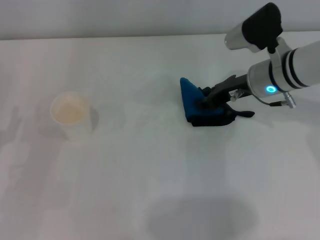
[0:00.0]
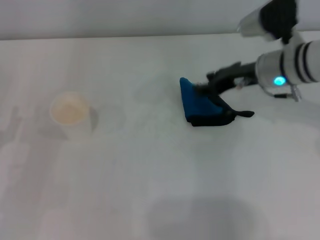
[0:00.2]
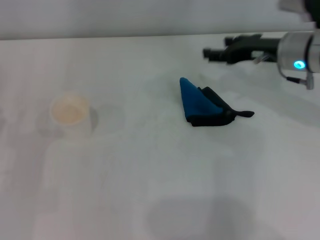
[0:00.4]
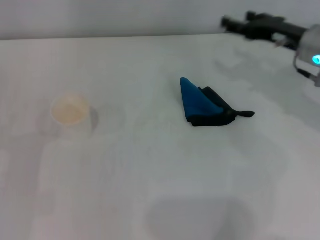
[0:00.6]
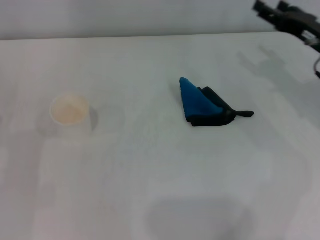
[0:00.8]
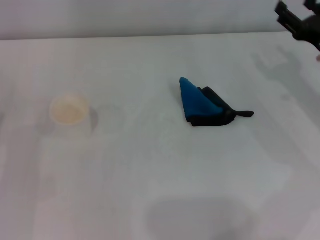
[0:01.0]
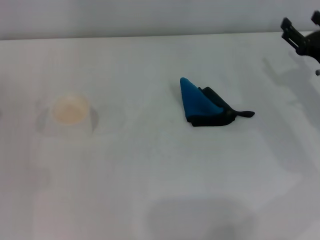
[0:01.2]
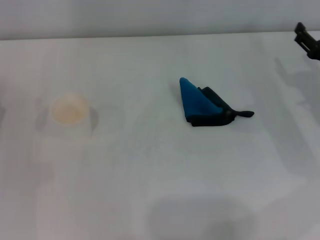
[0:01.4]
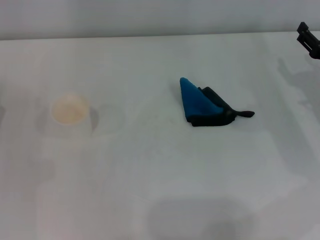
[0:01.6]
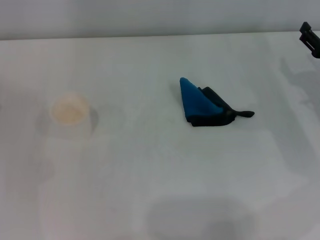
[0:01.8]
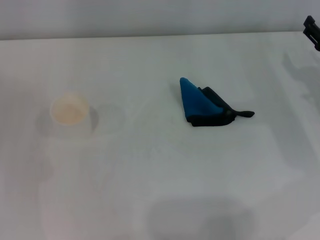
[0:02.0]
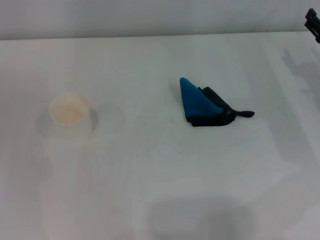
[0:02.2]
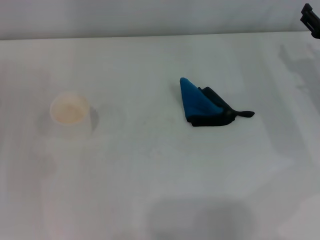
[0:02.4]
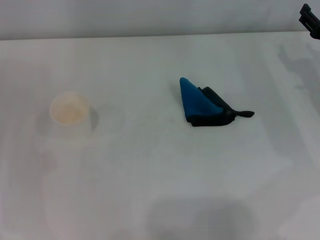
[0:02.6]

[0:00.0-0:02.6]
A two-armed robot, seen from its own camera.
0:00.0 to 0:01.2: The right gripper heads to the right and backward, covering some 15 cm, and opens up.
0:01.2 to 0:02.6: The grippers move only a little.

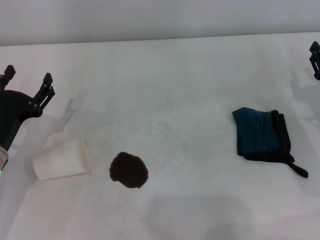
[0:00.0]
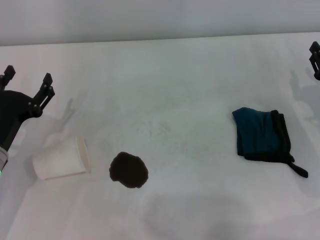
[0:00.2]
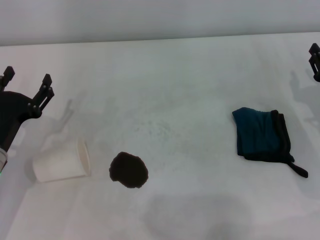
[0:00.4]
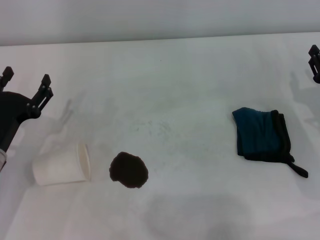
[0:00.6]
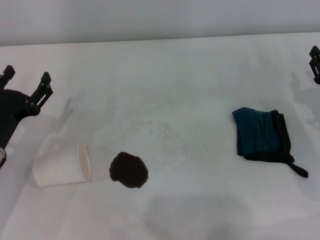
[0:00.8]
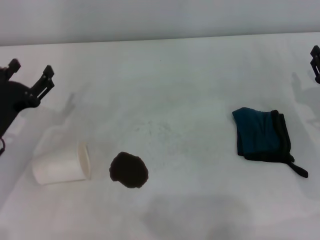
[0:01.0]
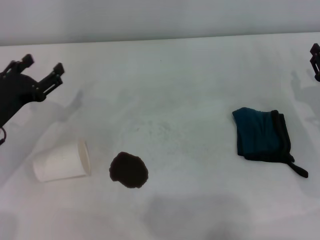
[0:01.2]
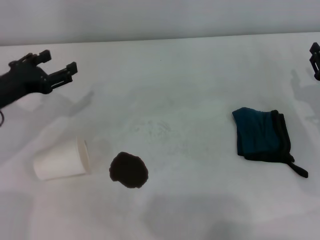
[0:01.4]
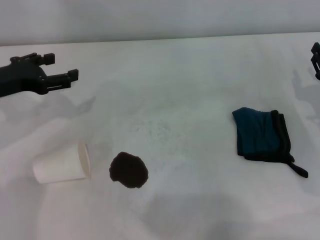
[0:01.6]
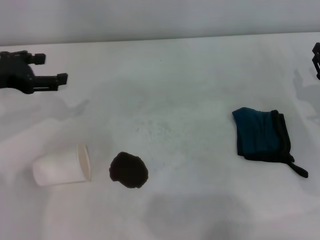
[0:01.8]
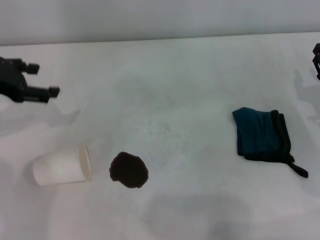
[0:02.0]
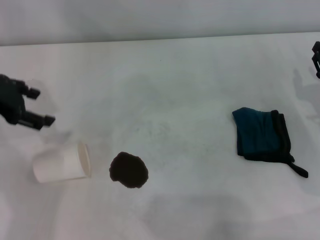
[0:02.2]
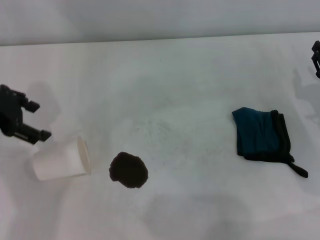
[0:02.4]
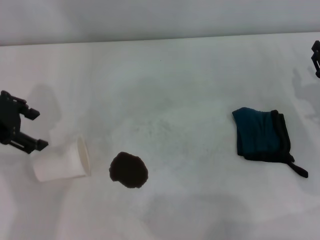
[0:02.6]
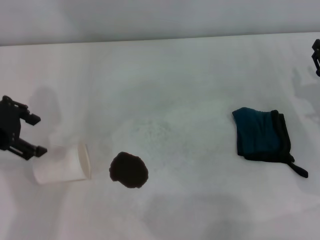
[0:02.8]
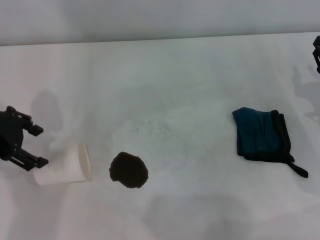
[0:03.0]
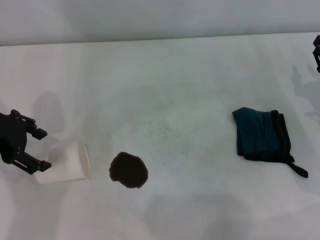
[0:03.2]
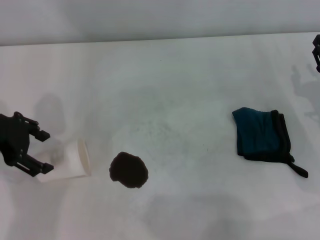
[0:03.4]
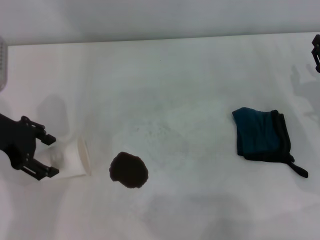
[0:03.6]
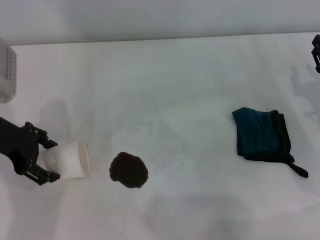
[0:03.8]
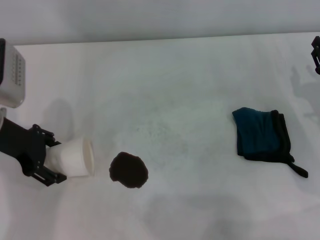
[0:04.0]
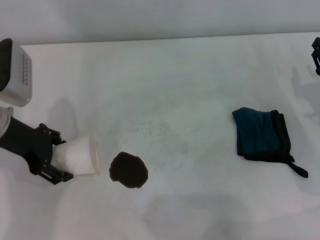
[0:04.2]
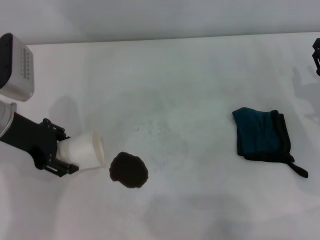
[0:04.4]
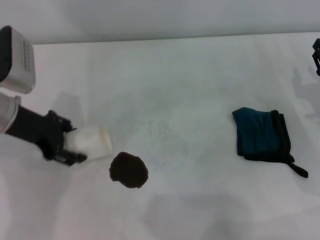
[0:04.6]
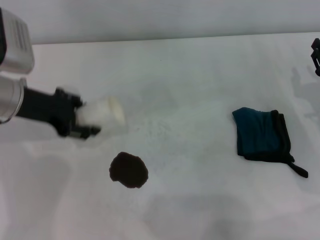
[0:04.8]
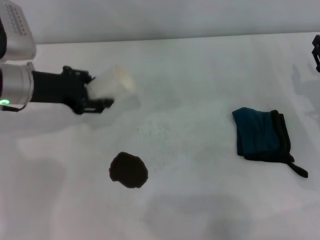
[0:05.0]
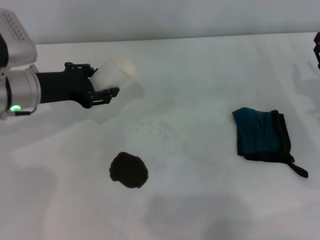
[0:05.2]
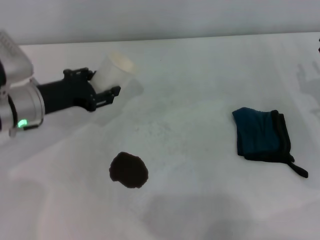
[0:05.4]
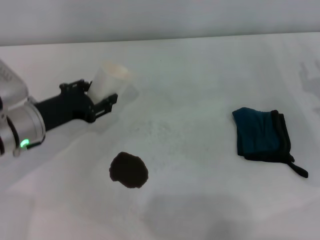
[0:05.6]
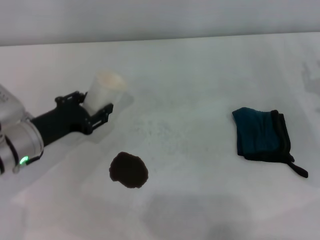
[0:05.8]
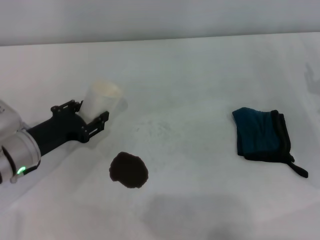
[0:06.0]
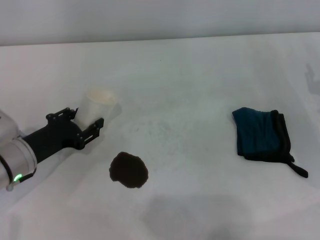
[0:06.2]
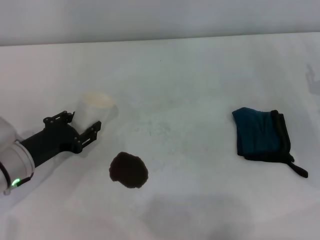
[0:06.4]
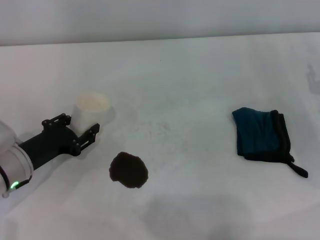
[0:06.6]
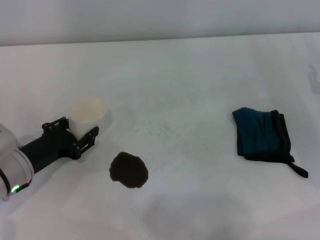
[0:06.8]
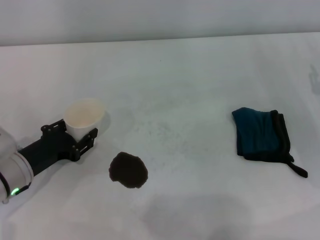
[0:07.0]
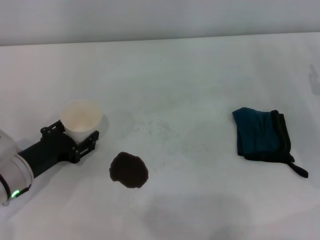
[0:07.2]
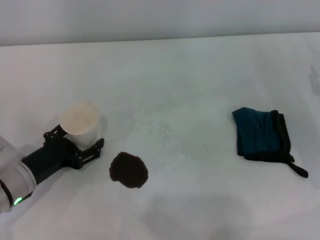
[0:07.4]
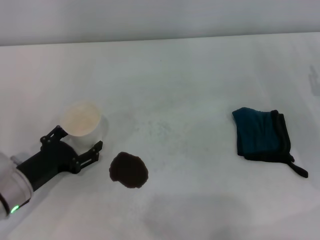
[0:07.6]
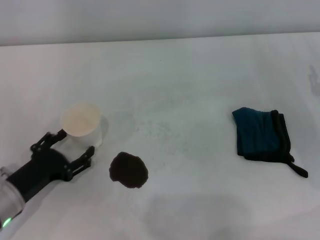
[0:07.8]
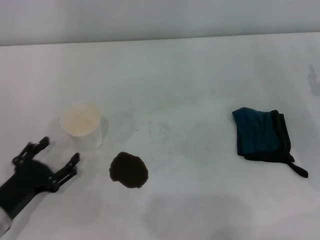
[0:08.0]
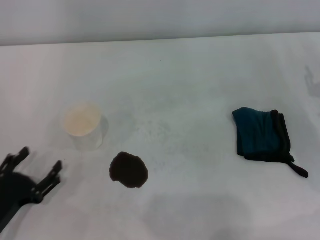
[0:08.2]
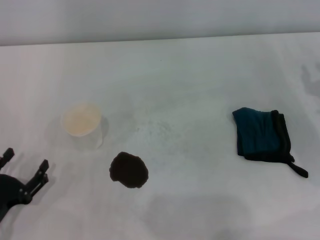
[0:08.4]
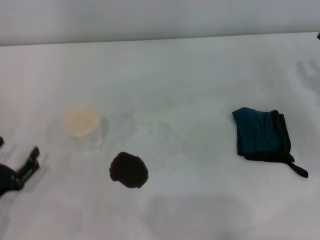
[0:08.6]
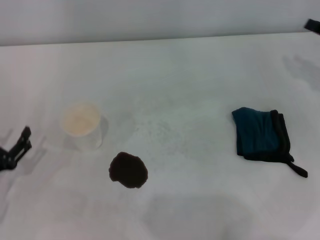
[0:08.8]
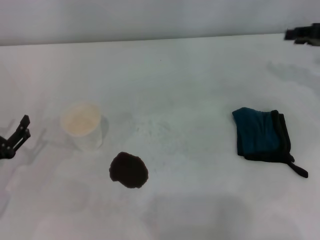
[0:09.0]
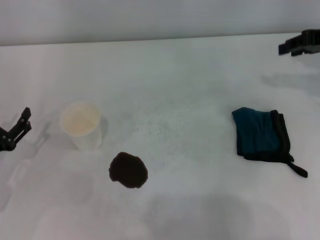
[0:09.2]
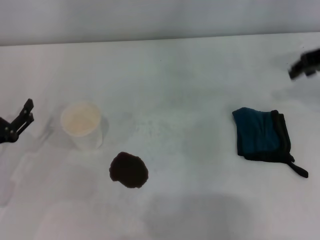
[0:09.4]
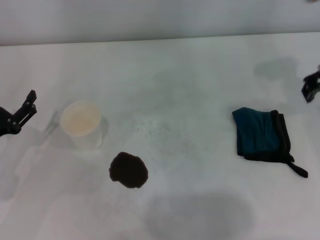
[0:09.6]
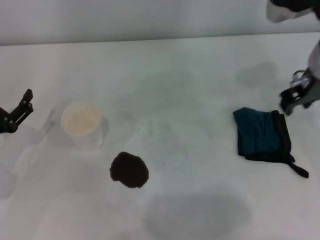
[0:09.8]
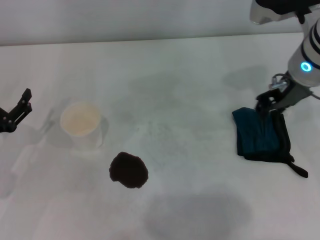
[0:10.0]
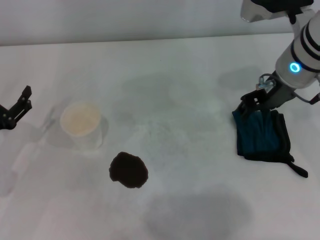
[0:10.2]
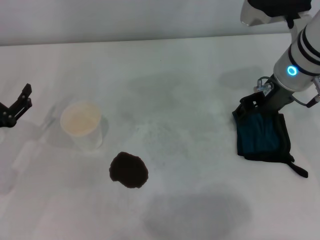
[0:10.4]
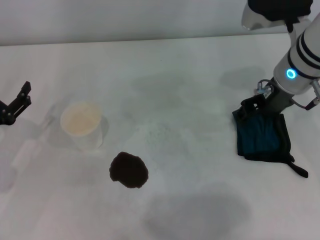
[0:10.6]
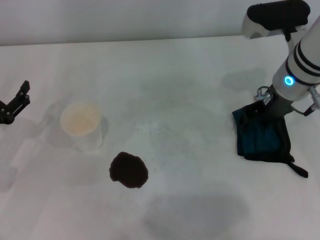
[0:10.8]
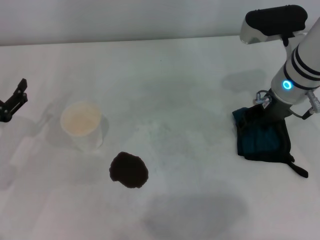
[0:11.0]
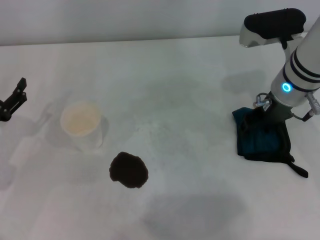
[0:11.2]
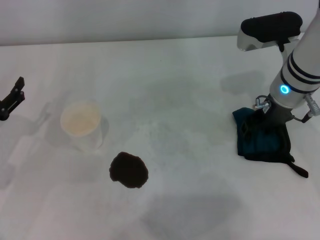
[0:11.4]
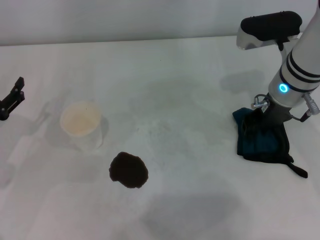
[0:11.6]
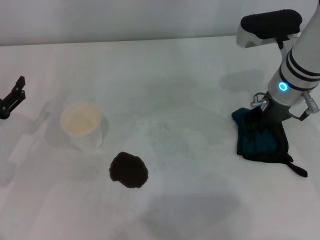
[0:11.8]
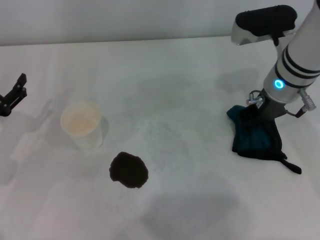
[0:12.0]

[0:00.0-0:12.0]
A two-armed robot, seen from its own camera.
Step, 0:00.0 to 0:04.2: Grasp the paper cup with the left gripper.
Step, 0:04.6 to 0:07.6: Stand the paper cup upright with the left gripper.
Step, 0:07.8 to 0:11.8: Grasp the rag with the right gripper.
0:00.0 to 0:01.6: The left gripper travels forward and upward by approximately 15 cm.
0:01.6 to 0:03.0: The left gripper goes about 5 cm upward.
0:03.0 to 0:04.4: The left gripper changes place by approximately 5 cm.
0:04.4 to 0:06.0: The left gripper is displaced downward and backward by some 10 cm, and closes.
0:06.0 to 0:07.6: The left gripper travels backward by approximately 5 cm, and opens its fingers.
0:07.6 to 0:09.0: The left gripper travels to the left by some 5 cm, and reaches roughly 10 cm backward, then returns. The right gripper goes roughly 15 cm upward and forward.
0:09.0 to 0:10.4: The right gripper shifts some 15 cm to the left.
0:10.4 to 0:12.0: The right gripper closes up.

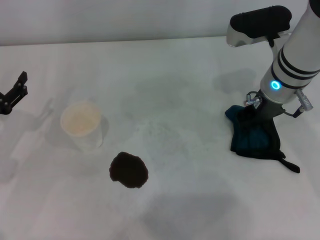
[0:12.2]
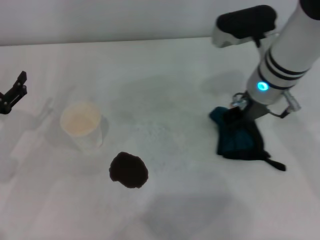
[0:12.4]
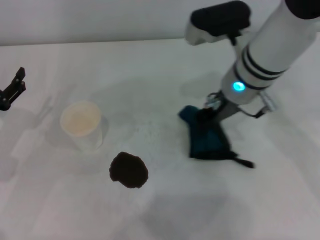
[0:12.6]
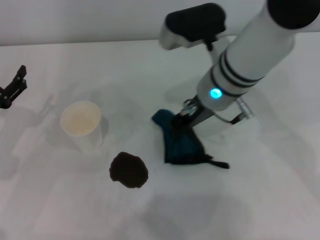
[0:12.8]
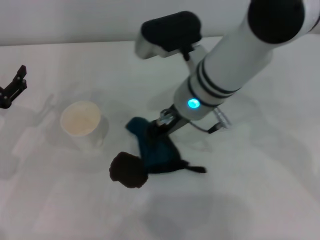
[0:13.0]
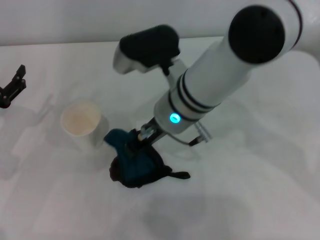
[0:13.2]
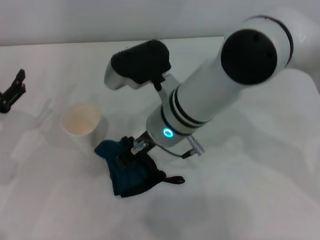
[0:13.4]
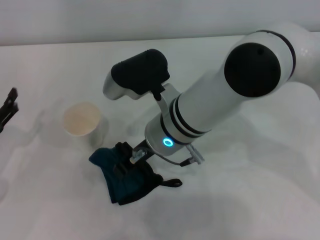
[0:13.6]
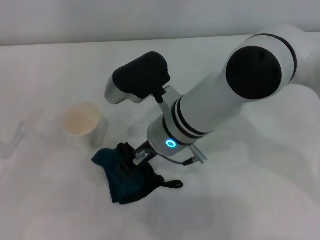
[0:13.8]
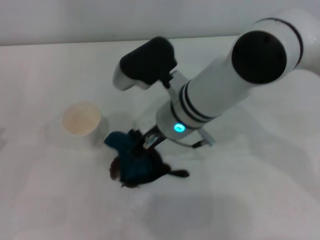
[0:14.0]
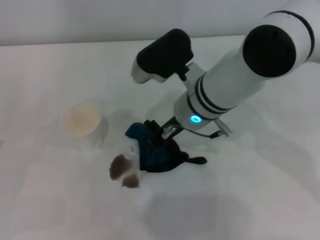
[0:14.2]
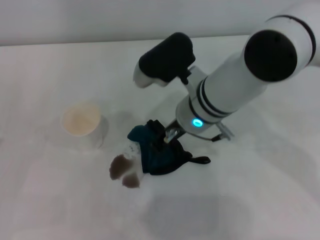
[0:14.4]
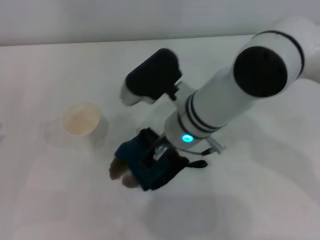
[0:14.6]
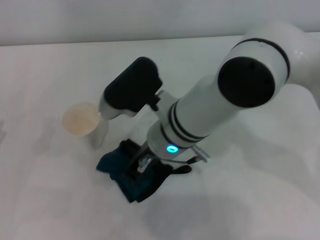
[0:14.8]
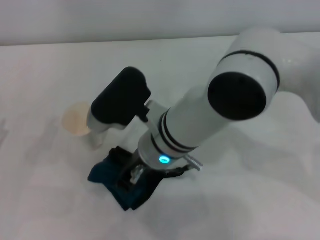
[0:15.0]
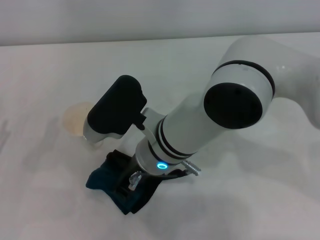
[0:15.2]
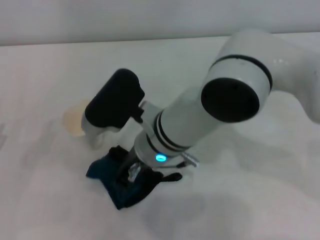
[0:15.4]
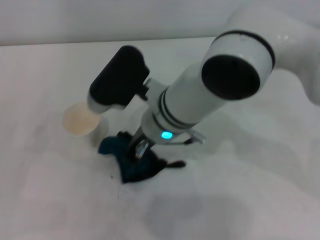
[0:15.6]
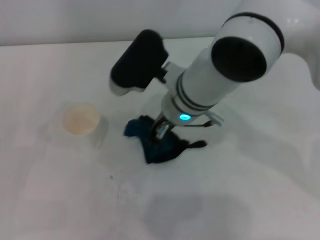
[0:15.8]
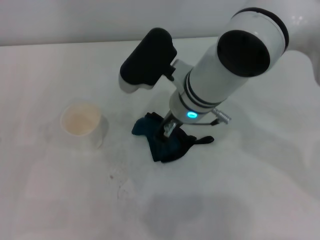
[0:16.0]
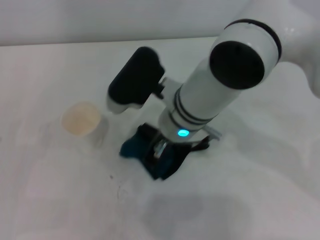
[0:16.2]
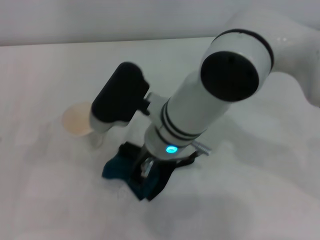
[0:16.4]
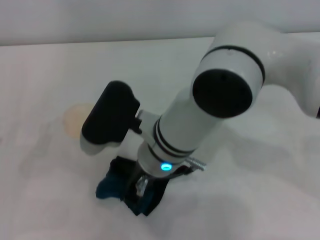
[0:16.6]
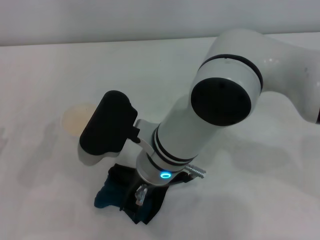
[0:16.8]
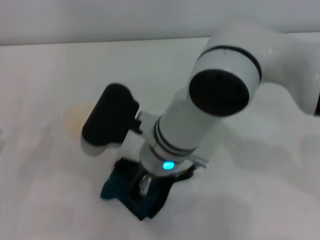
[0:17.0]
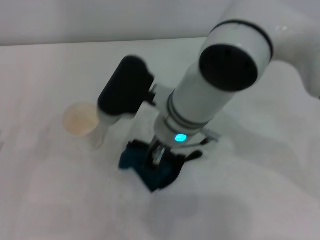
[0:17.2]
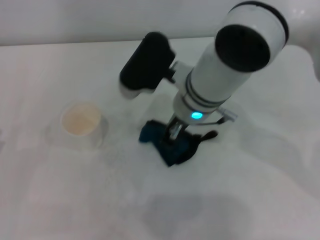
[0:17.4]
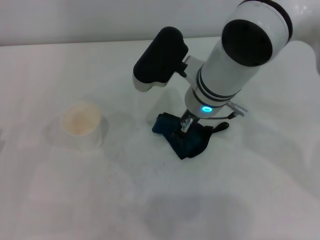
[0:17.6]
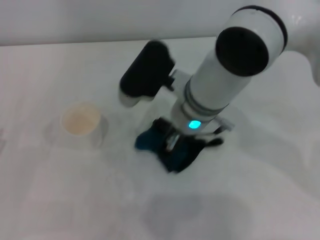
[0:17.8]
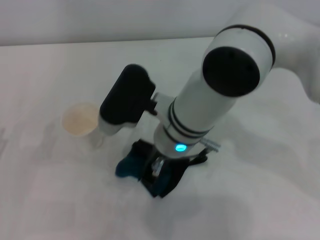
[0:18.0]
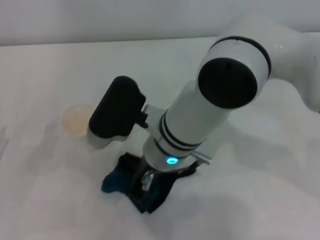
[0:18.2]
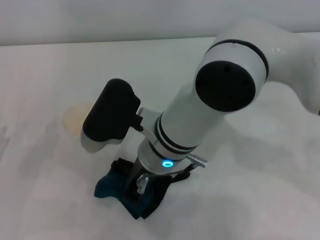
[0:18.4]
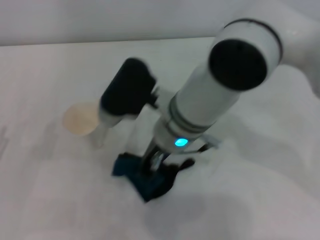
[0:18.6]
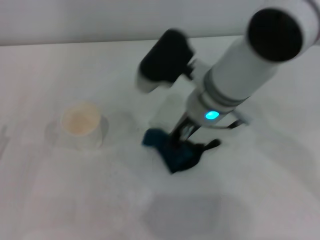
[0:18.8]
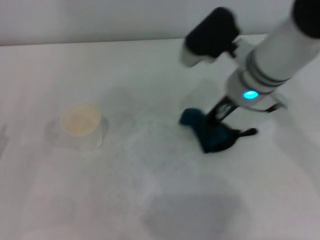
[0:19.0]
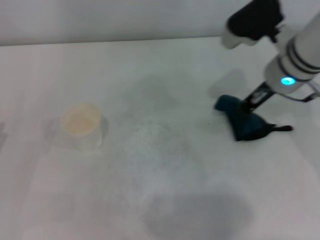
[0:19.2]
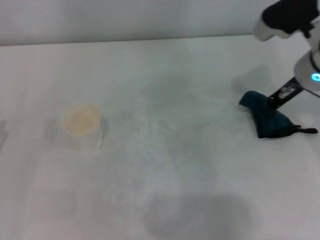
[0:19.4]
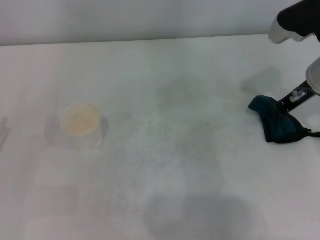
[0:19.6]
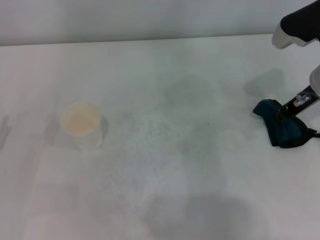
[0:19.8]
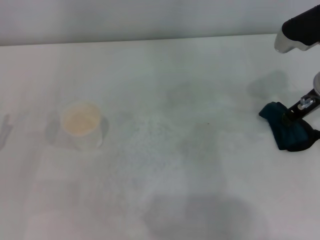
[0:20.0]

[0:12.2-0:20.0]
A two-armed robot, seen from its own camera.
Step, 0:12.2 to 0:19.6: Wipe the stains off the table with the right gripper.
0:12.2 to 0:13.8: The right gripper shifts about 15 cm to the left; the left gripper is displaced backward by roughly 5 cm.
0:13.8 to 0:15.4: The grippers move only a little.
0:16.8 to 0:18.4: The right gripper travels forward and back again, approximately 10 cm each way.
0:18.4 to 0:20.0: The right gripper goes about 25 cm to the right.
